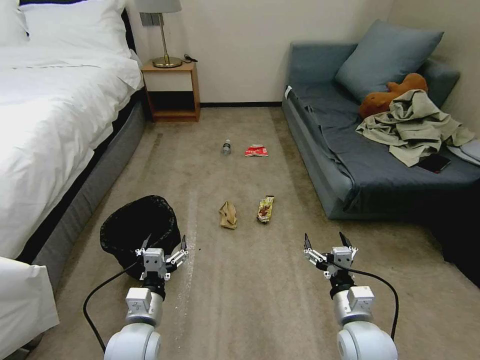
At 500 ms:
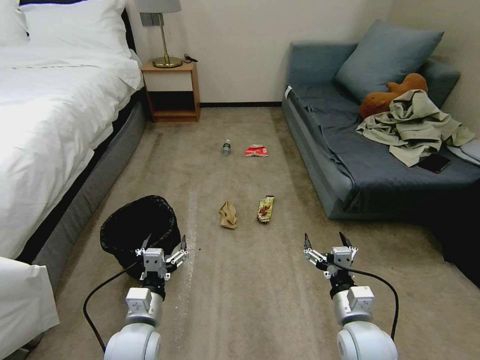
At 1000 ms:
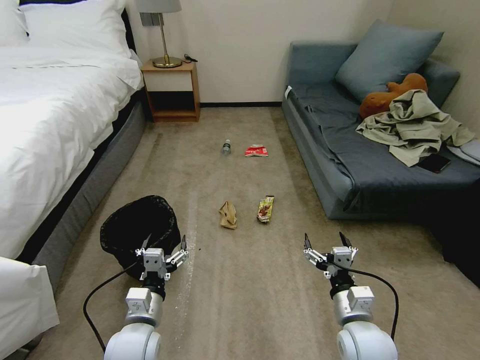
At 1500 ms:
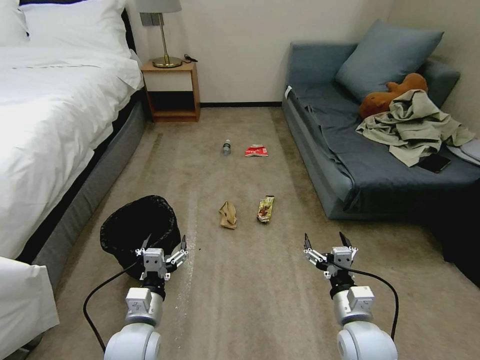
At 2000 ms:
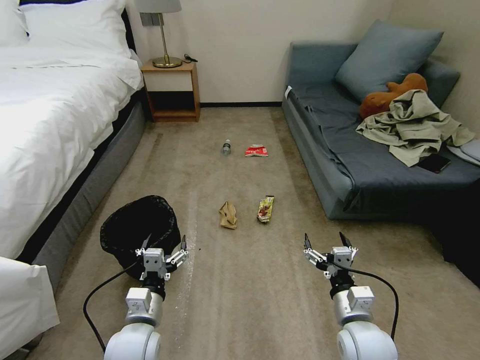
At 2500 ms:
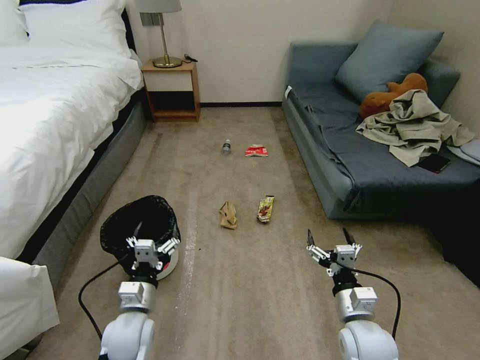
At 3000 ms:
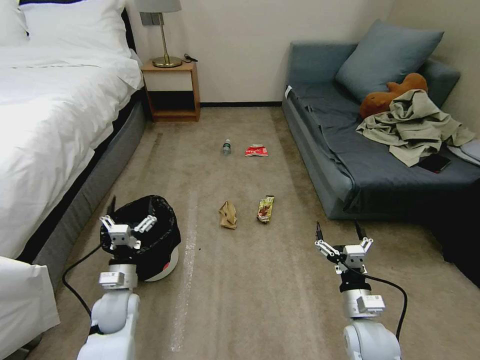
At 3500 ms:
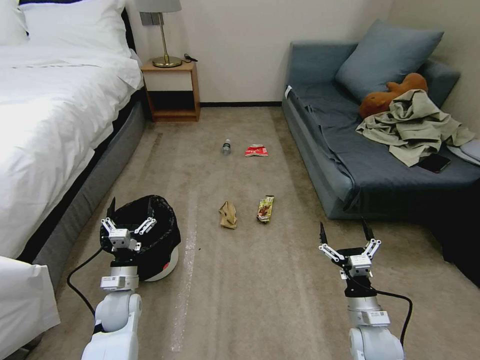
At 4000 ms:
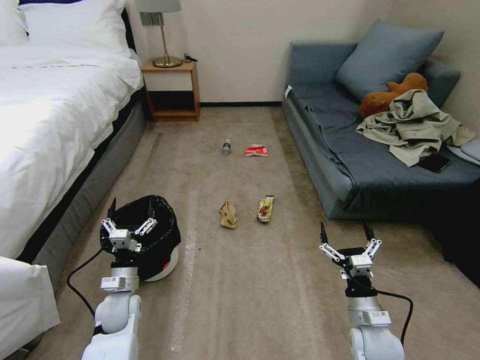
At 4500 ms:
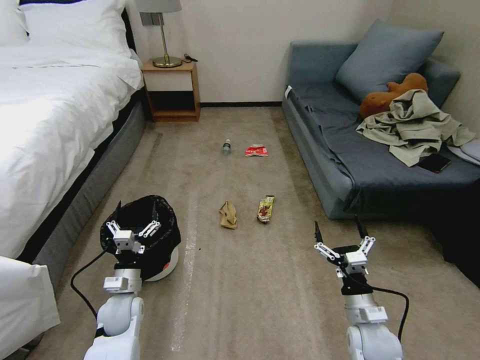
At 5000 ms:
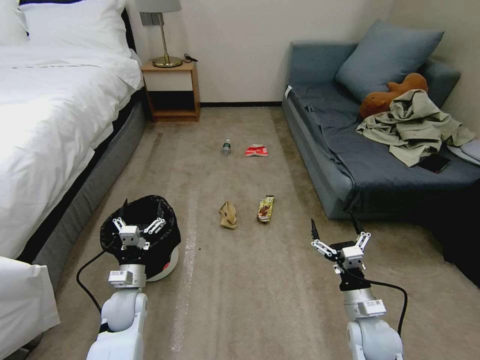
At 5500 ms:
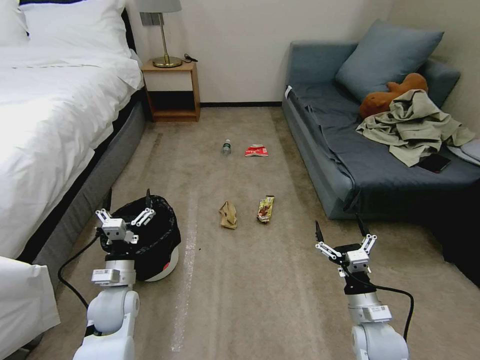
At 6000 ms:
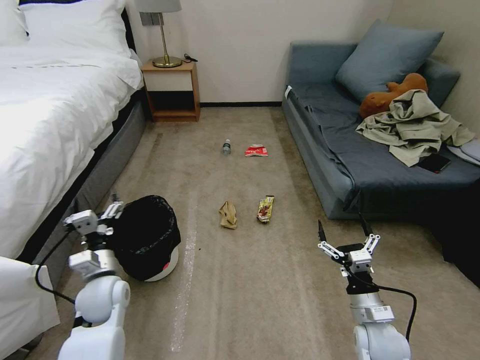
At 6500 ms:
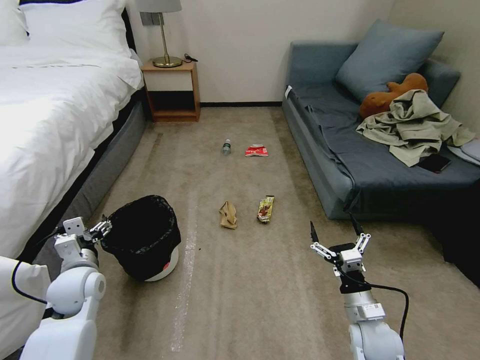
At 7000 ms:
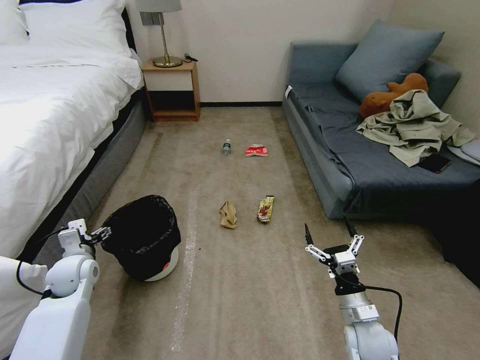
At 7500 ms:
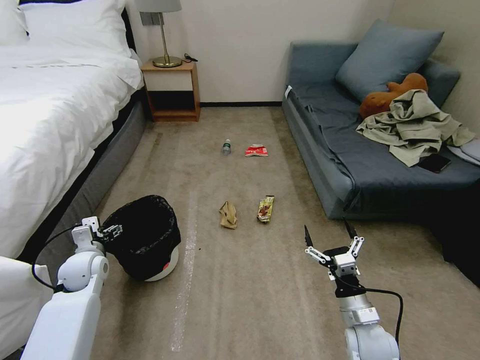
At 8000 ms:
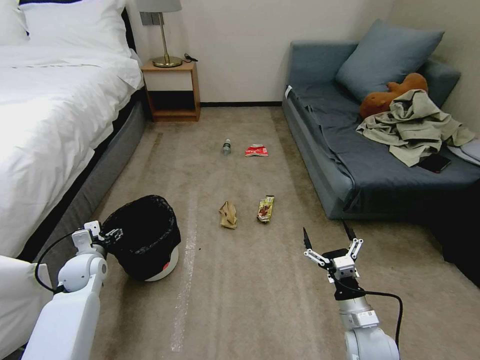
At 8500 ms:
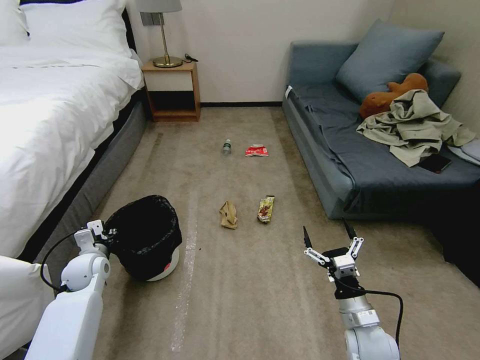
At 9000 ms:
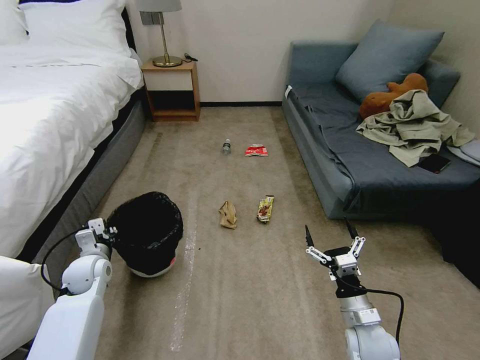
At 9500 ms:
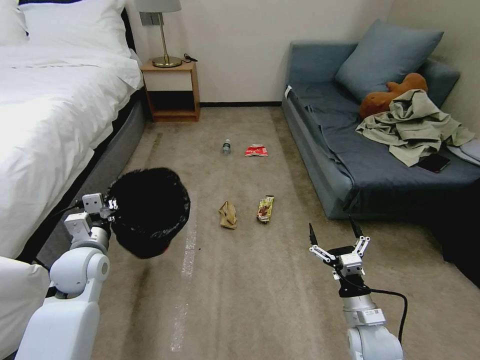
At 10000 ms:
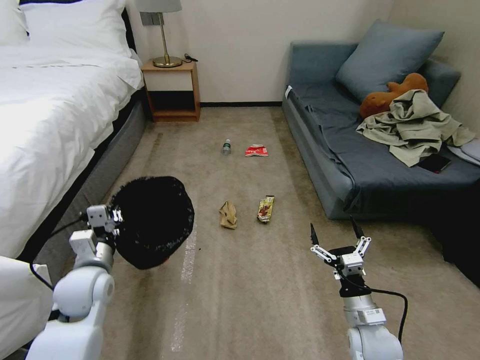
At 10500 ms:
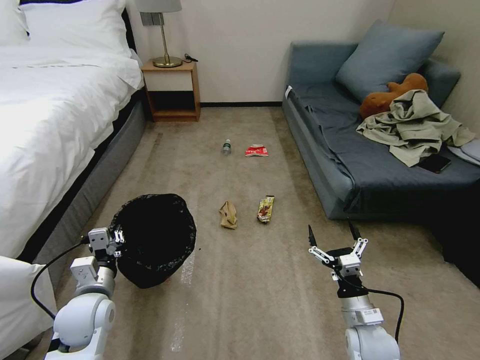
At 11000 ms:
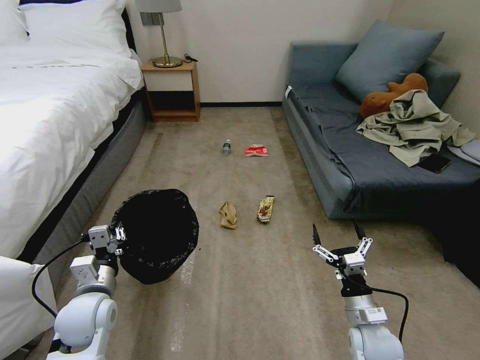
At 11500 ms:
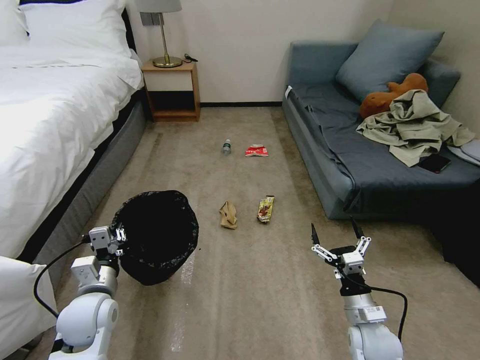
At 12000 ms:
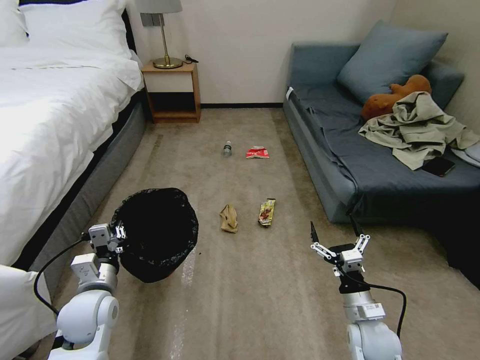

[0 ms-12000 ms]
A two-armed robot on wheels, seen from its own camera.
Task of the whole recording: Pick up the trash bin, then pick up the garbage on the floor and place it into the trash bin.
2000 ms to 4000 ms: The right gripper heads downward, covering approximately 5 cm; the left gripper travels forward, to the left and downward by some 15 cm.
4000 ms to 6000 ms: The left gripper is displaced upward by about 10 cm.
6000 ms to 8000 ms: The left gripper travels to the left and forward by approximately 10 cm.
8000 ms to 10000 ms: The left gripper heads upward, to the right and backward, covering some 15 cm, and closes.
10000 ms to 12000 ms: The left gripper ends up some 5 cm from where it was.

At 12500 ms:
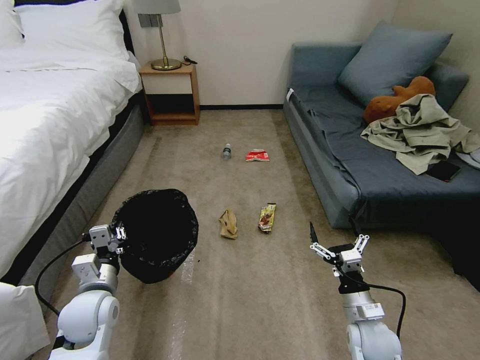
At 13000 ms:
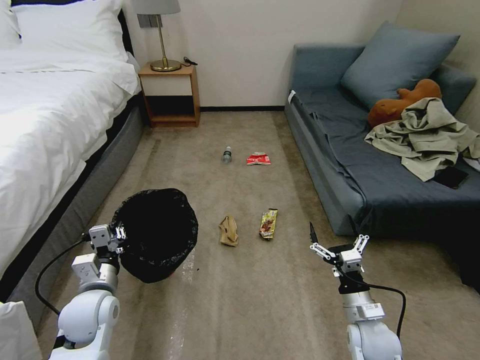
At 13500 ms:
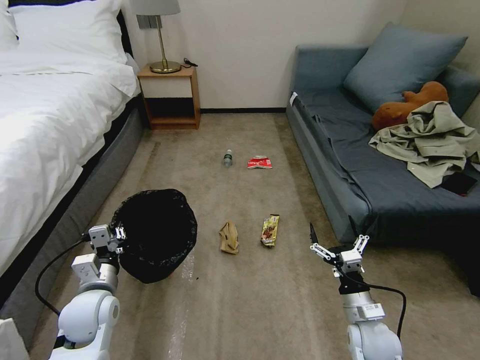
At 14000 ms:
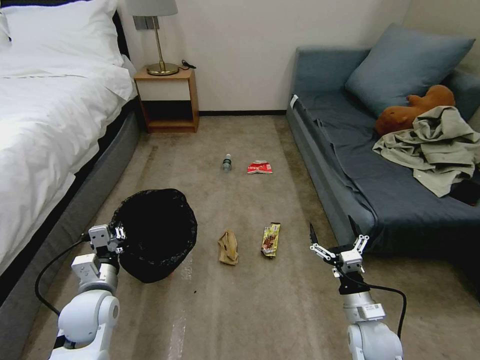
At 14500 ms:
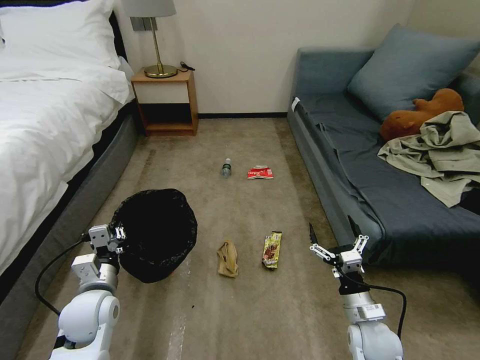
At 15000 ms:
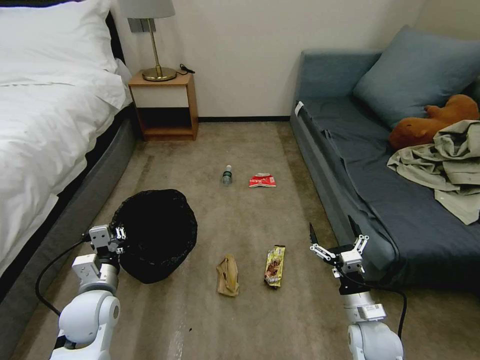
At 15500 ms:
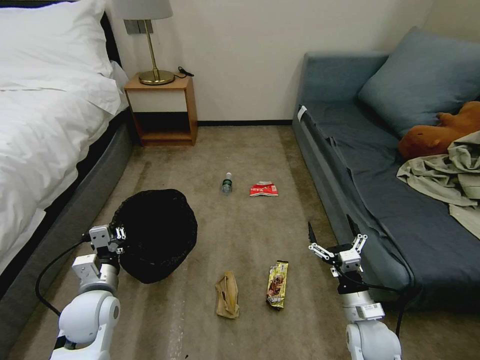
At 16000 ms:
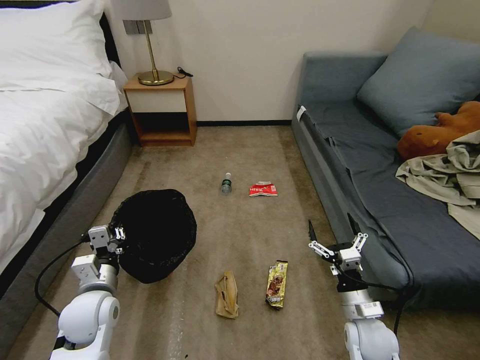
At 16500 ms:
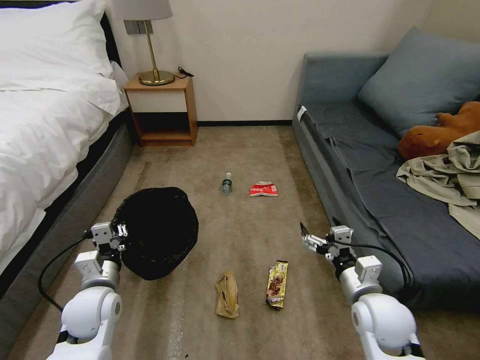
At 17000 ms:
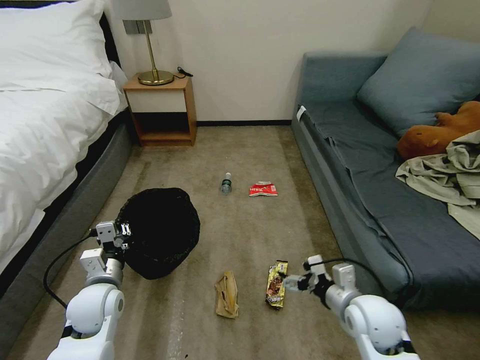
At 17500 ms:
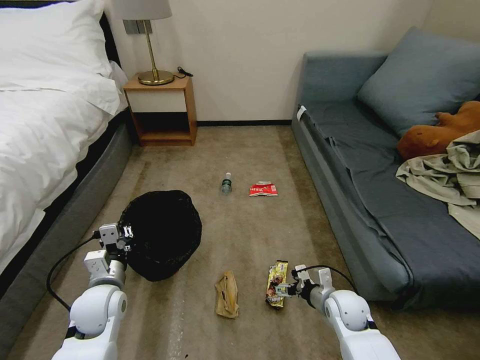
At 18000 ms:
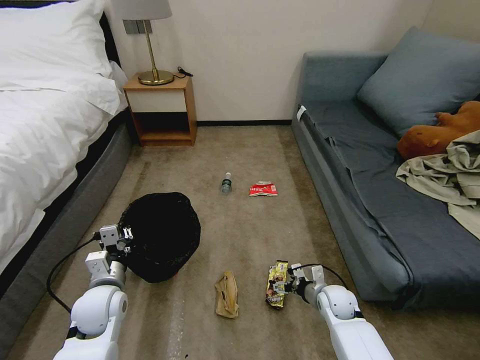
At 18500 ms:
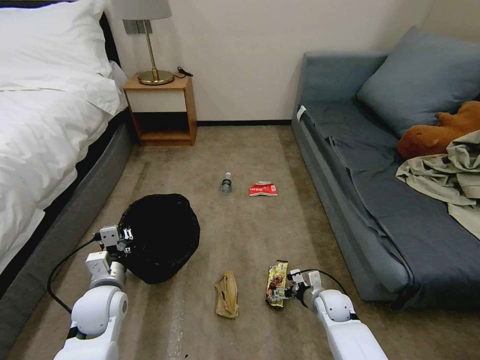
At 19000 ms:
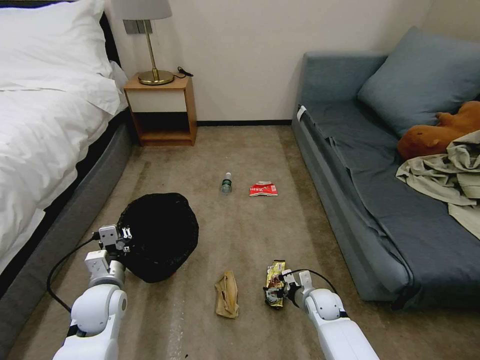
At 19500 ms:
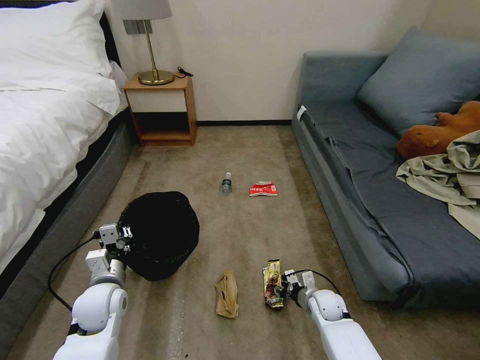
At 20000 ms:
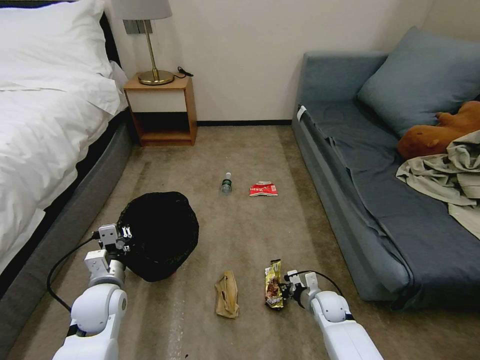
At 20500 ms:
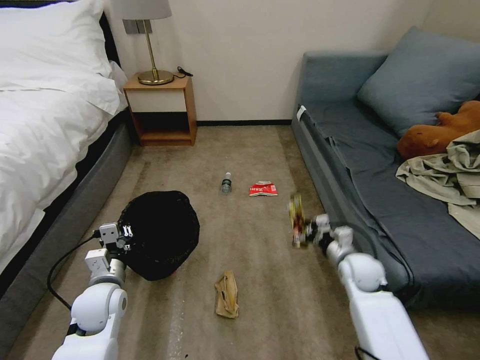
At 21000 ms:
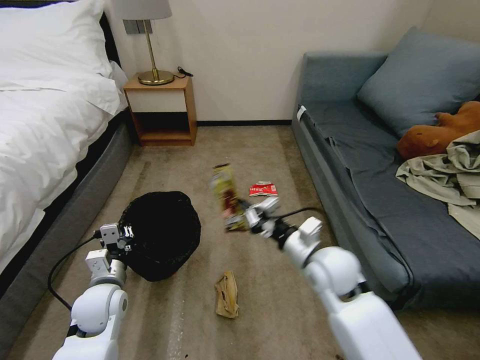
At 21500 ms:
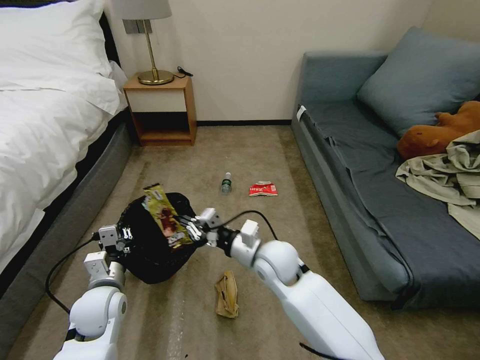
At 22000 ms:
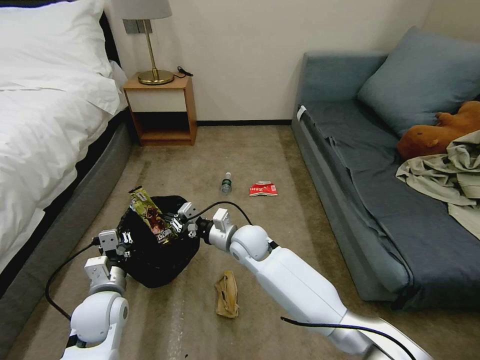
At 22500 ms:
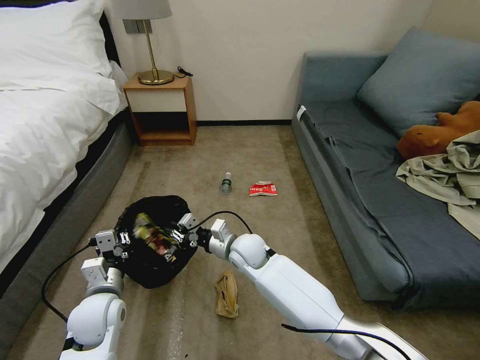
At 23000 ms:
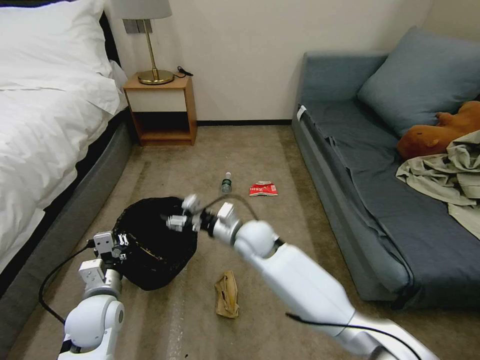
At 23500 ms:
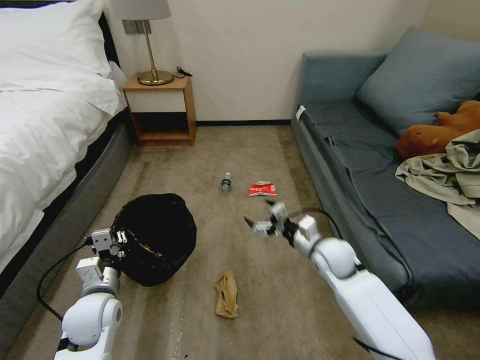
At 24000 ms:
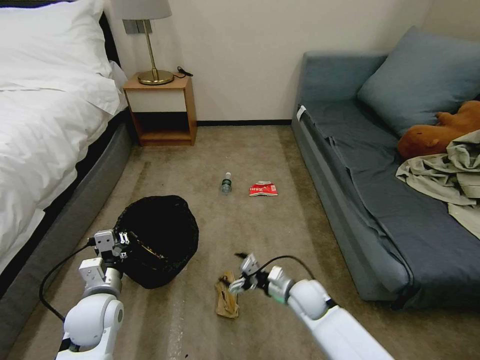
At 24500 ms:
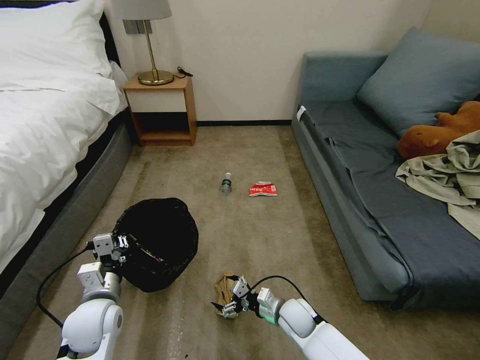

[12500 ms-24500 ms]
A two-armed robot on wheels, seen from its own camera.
Task of the whole recording: Pick up the trash bin, then pick up the garbage on the floor and place it into the trash bin.
14500 ms to 16500 ms: The right gripper travels upward by some 10 cm.
16500 ms to 18500 ms: The right gripper is displaced downward and forward by approximately 20 cm.
18500 ms to 20500 ms: The right gripper travels upward by some 15 cm, and closes its fingers.
20500 ms to 22500 ms: The right gripper goes some 30 cm to the left.
22500 ms to 24500 ms: The right gripper moves downward, to the right and backward, roughly 25 cm, and opens its fingers.

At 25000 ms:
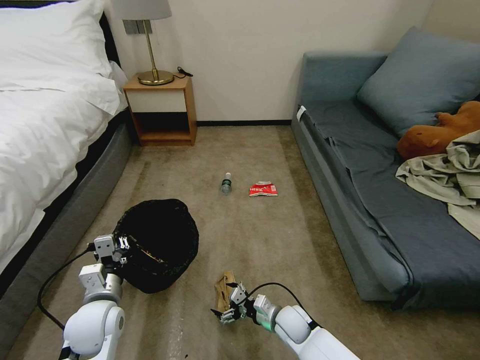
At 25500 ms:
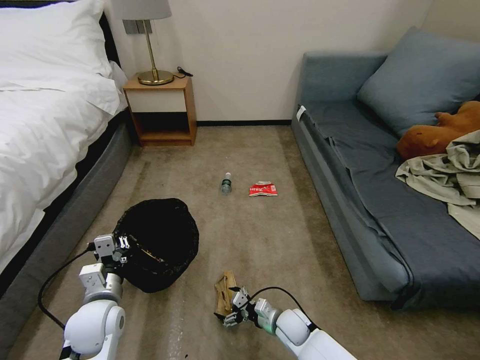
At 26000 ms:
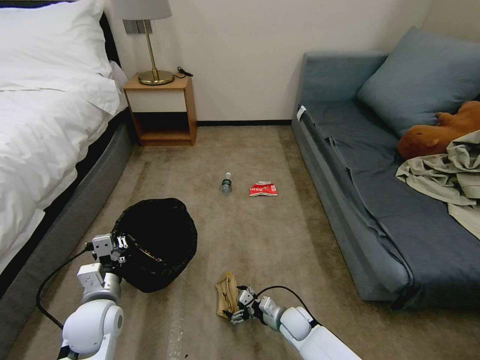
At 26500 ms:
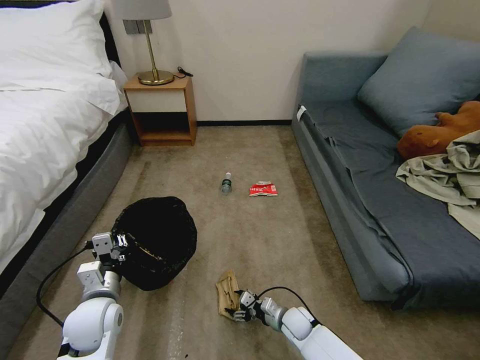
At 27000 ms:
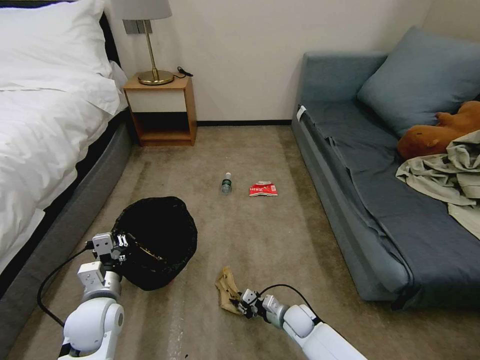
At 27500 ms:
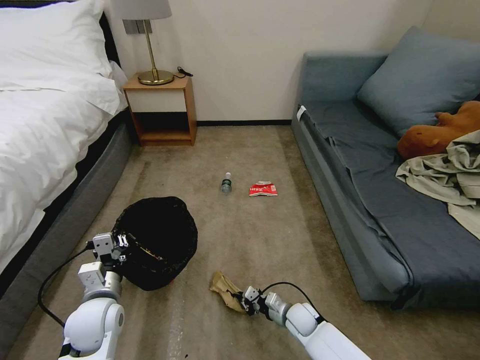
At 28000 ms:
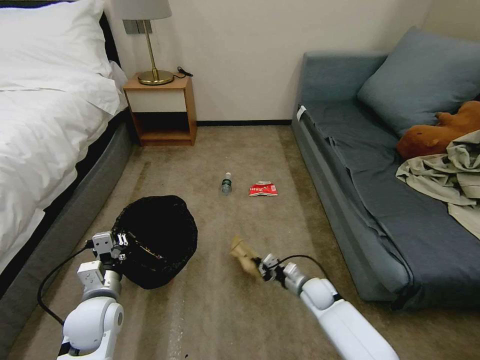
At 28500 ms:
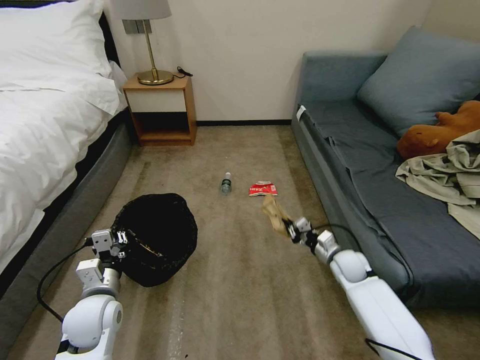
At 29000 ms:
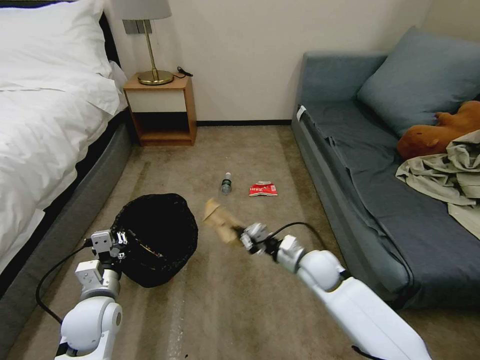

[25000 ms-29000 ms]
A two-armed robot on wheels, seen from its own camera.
Task of the whole recording: Pick up the trash bin, then pick up the garbage on the floor and place it into the trash bin.
25000 ms to 27000 ms: The right gripper ends up approximately 5 cm from where it was, and closes up.
27000 ms to 29000 ms: The right gripper moves upward, approximately 20 cm.
